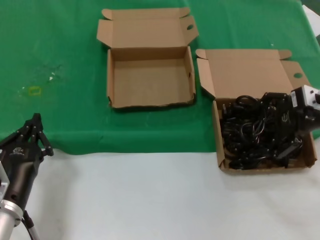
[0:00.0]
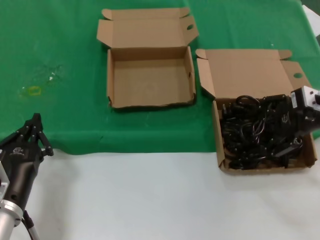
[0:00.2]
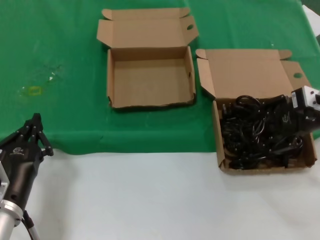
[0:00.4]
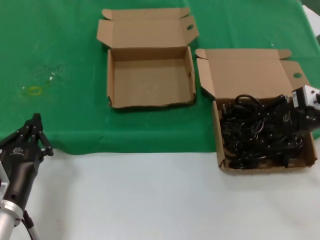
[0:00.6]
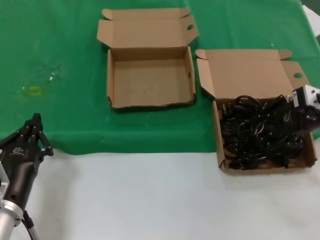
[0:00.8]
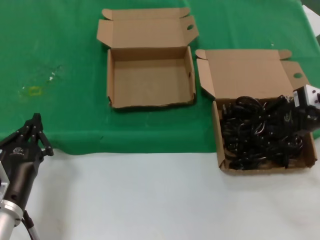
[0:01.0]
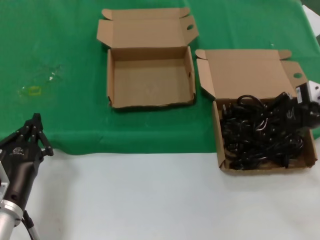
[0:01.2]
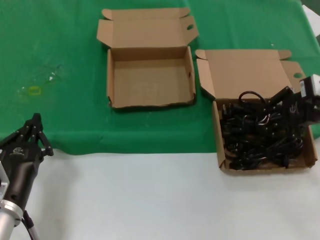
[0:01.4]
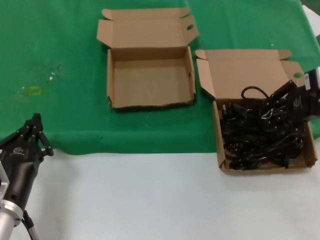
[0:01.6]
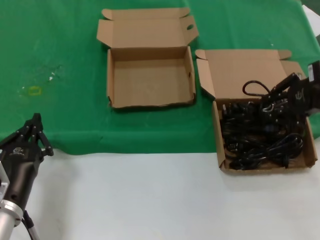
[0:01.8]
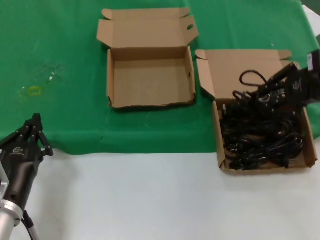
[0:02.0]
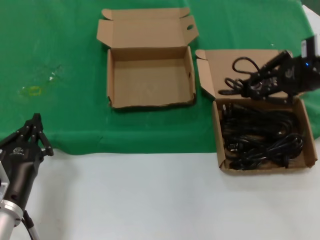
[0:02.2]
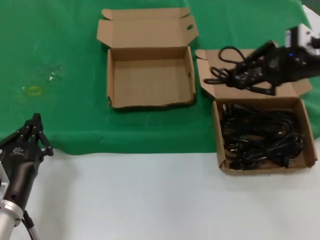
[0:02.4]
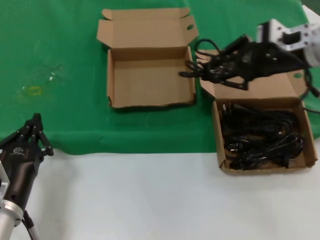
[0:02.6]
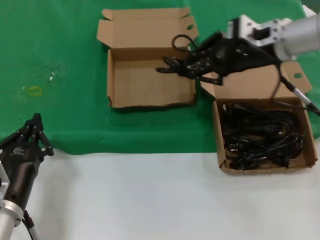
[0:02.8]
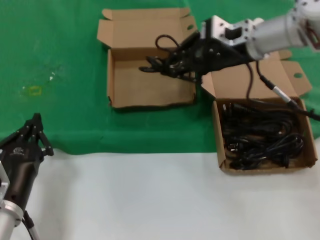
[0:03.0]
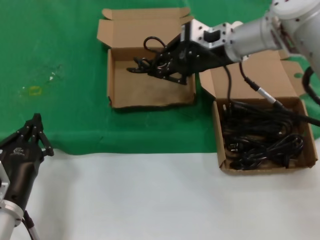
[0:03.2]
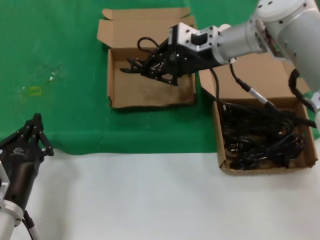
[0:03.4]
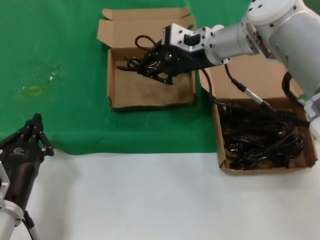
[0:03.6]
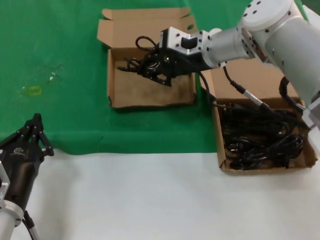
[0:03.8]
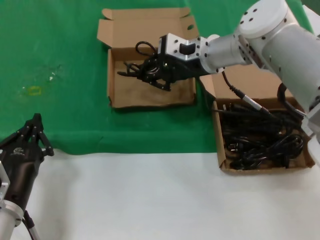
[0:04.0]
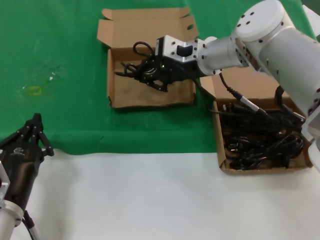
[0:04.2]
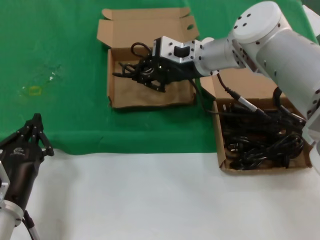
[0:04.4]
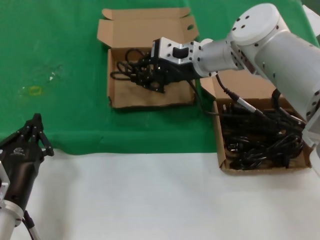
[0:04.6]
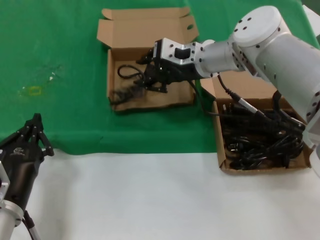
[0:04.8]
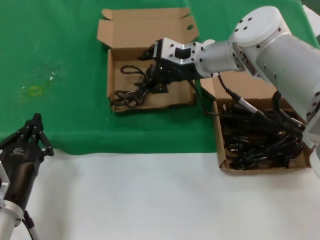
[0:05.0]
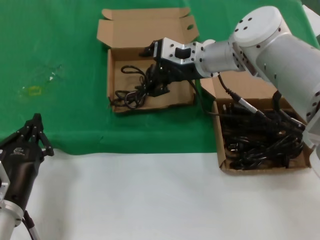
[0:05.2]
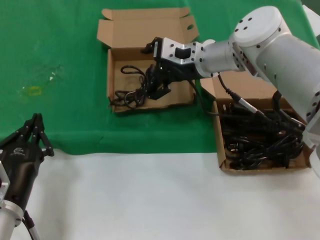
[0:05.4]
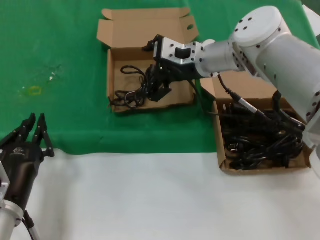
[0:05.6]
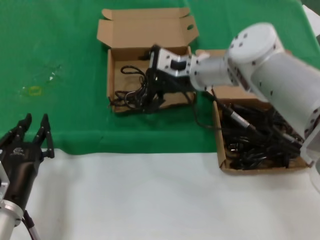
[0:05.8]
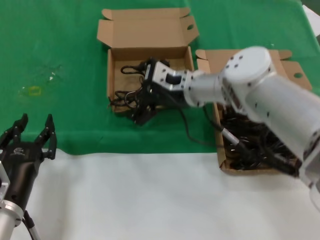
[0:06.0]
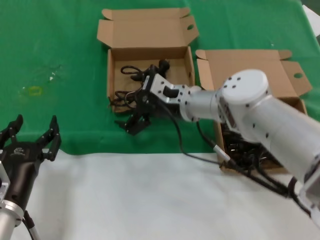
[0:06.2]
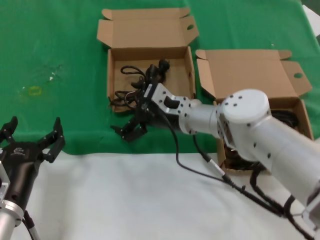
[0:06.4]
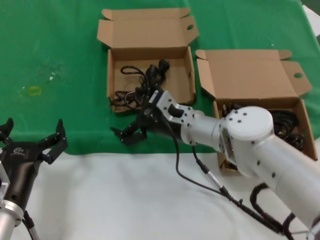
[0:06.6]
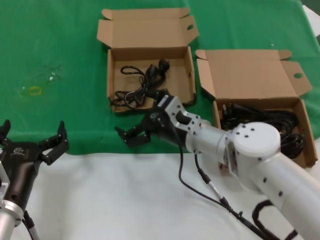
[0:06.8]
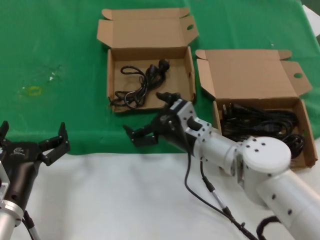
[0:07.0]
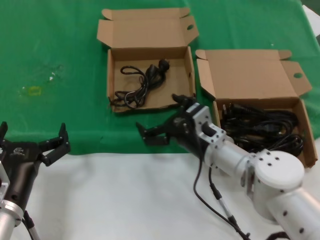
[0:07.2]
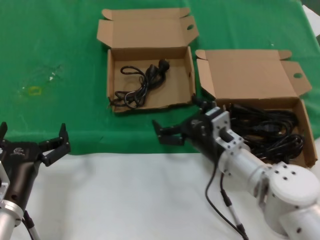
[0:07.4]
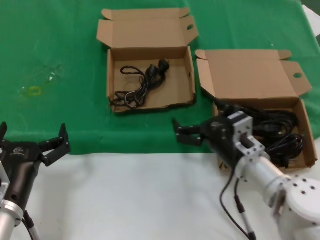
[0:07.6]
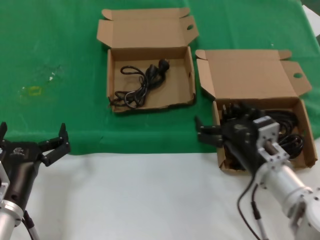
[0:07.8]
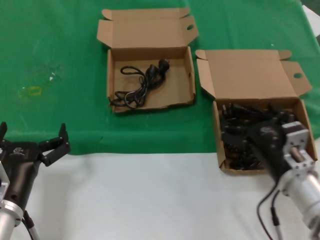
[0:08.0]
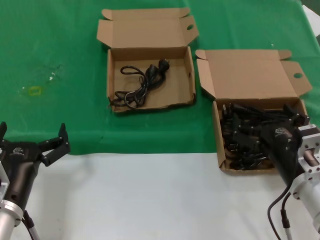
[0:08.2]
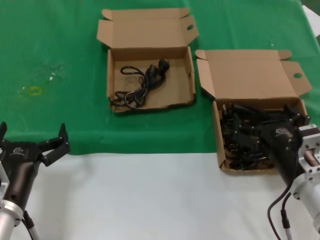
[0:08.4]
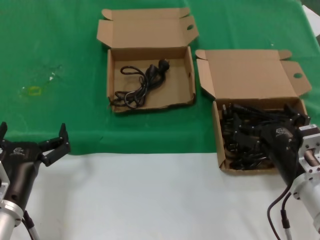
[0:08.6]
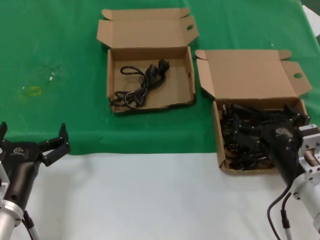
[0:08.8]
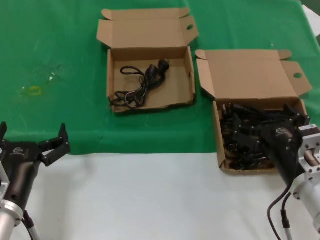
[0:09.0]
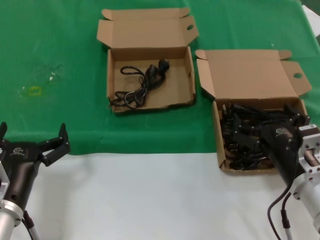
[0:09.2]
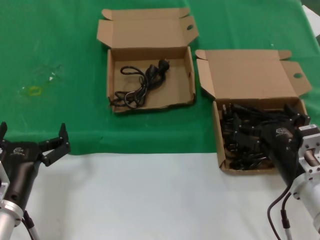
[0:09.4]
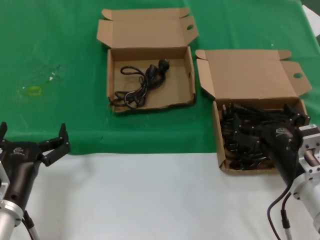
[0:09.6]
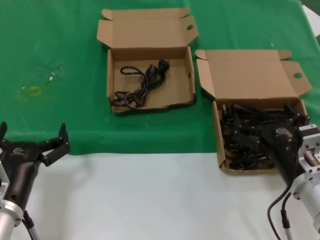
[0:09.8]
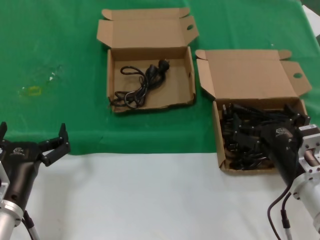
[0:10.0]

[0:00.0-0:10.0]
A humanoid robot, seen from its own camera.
Task of the whole recording: take the parts from the box containing them and put them into an empty box.
Step, 0:01.2 to 0:04.8: Place the data cable in the another box.
0:00.0 to 0:01.4: The hands stay close to where they were, moving slightly.
0:01.4 to 0:02.8: The right hand moves to the left, upward and forward, some 15 cm.
0:02.8 to 0:04.2: The right hand travels to the left and downward by some 15 cm.
0:04.2 to 0:05.8: There are only small adjustments of the hands.
0:05.8 to 0:07.2: The right hand moves downward and backward, some 20 cm.
0:07.2 to 0:08.6: The right hand heads to the right and backward, covering about 15 cm.
0:08.6 to 0:10.0: The two hands keep their place.

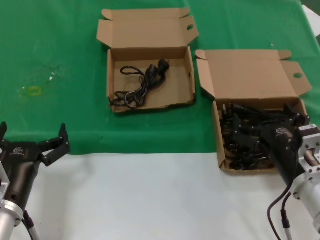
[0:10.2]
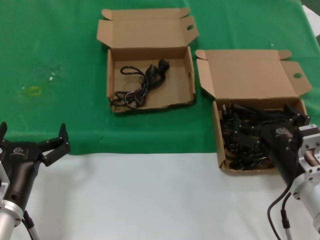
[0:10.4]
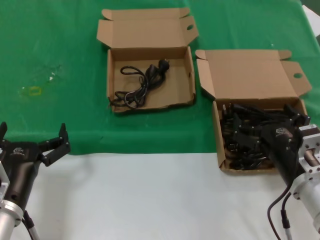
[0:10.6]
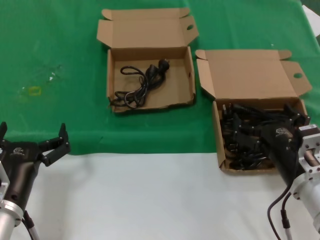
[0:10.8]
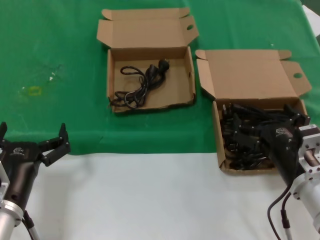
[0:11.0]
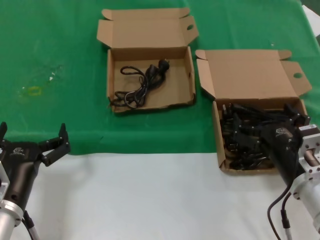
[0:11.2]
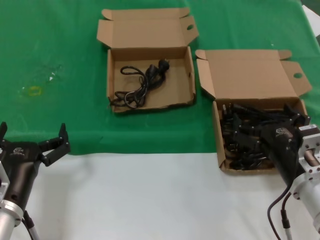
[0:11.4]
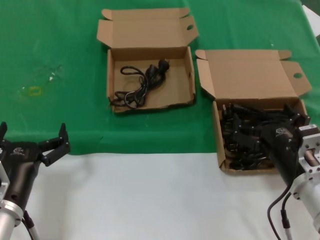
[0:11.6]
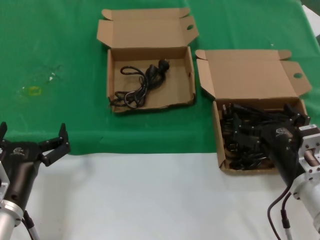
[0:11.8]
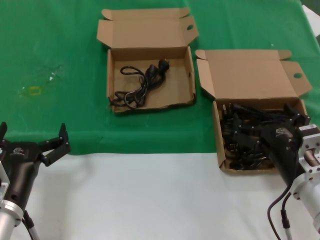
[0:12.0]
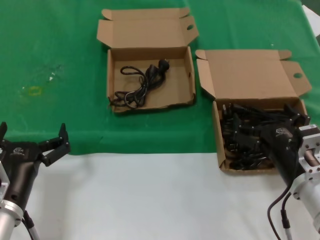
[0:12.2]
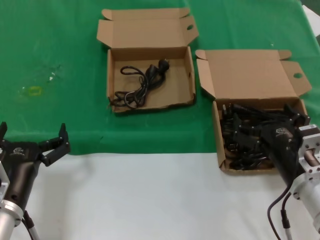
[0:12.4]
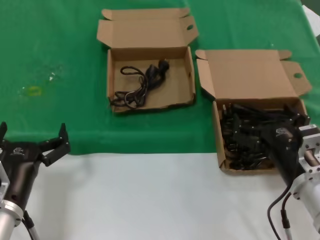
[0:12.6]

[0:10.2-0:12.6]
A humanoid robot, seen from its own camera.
Task of the whole recording: take the parts from the box containing them and put them into an empty box.
0:10.2 to 0:12.6: Neither hand changes place.

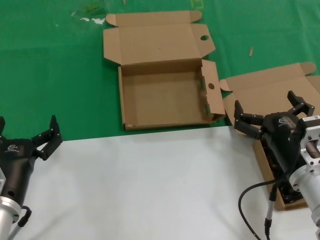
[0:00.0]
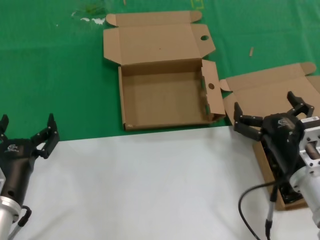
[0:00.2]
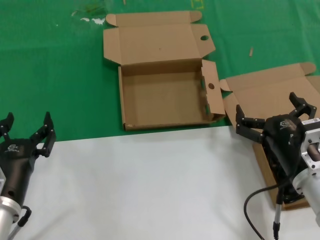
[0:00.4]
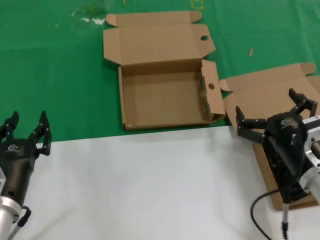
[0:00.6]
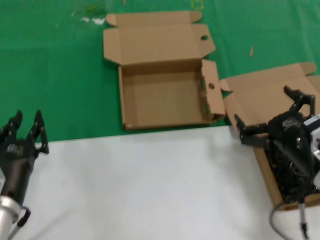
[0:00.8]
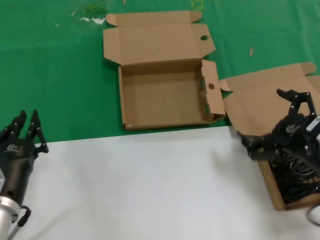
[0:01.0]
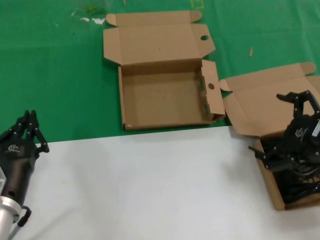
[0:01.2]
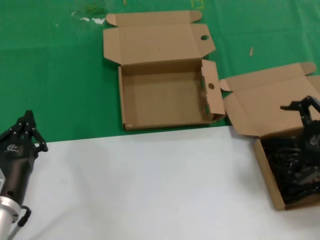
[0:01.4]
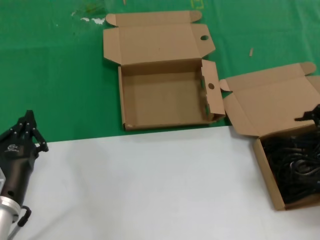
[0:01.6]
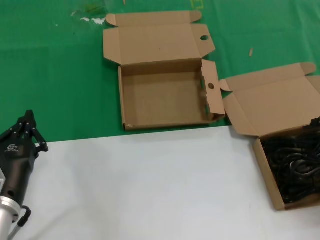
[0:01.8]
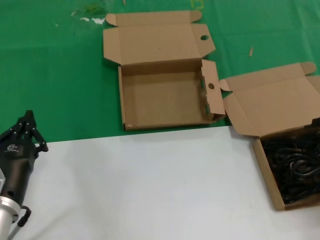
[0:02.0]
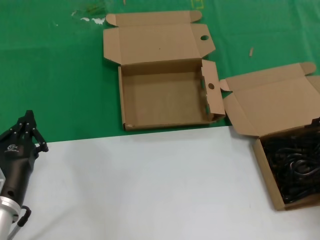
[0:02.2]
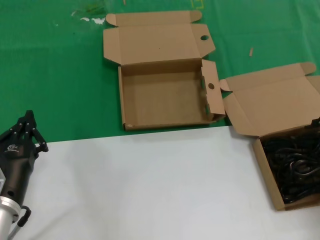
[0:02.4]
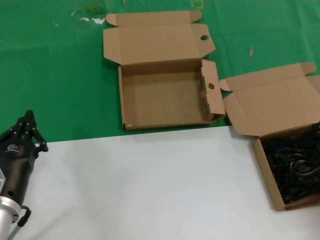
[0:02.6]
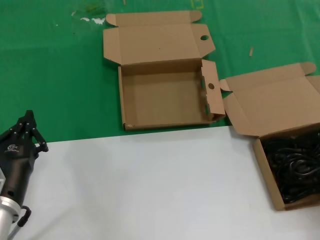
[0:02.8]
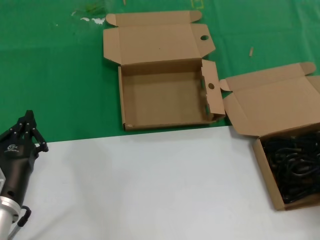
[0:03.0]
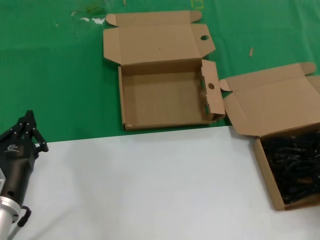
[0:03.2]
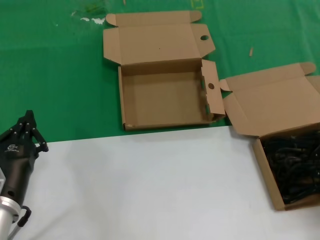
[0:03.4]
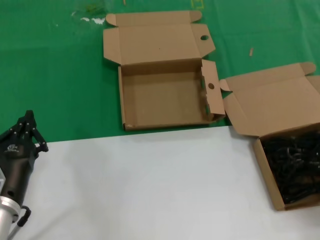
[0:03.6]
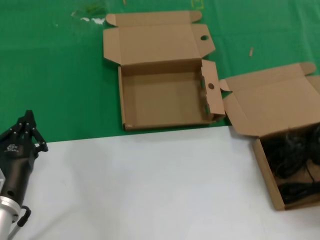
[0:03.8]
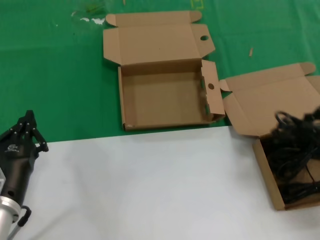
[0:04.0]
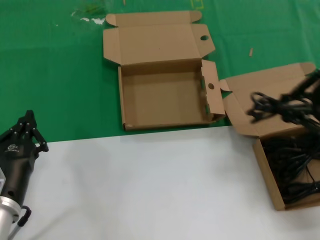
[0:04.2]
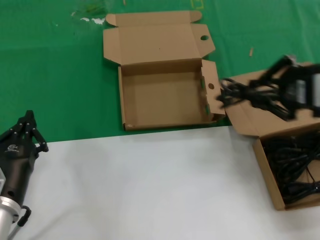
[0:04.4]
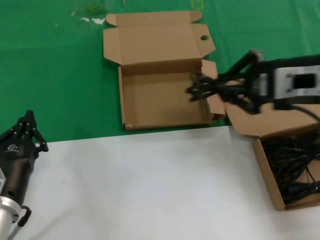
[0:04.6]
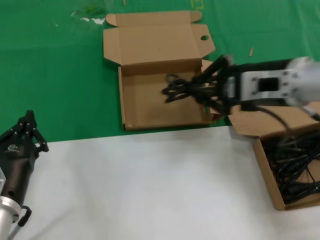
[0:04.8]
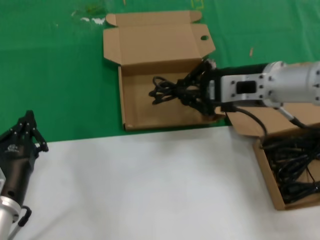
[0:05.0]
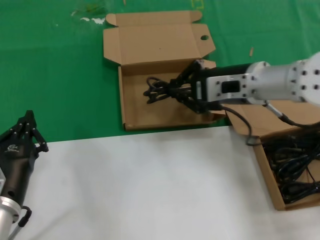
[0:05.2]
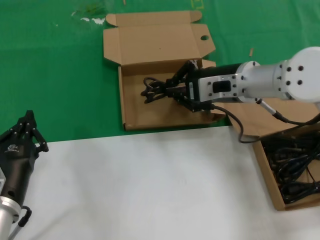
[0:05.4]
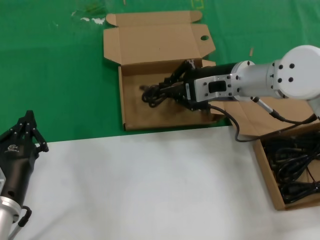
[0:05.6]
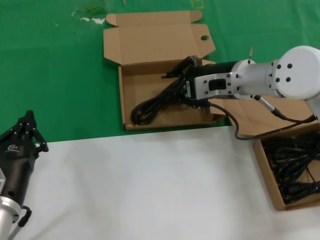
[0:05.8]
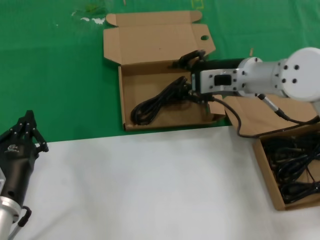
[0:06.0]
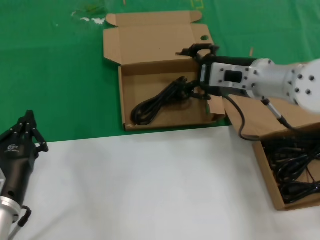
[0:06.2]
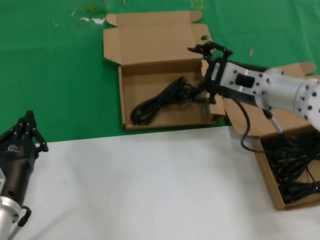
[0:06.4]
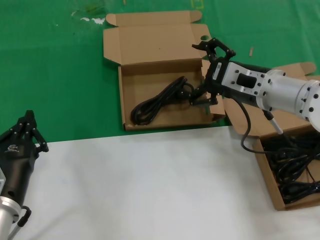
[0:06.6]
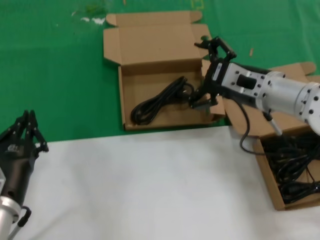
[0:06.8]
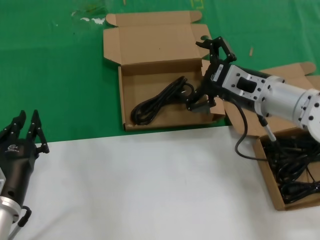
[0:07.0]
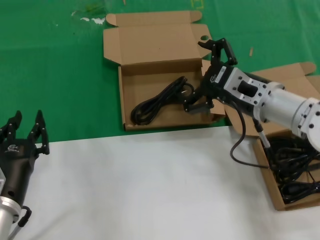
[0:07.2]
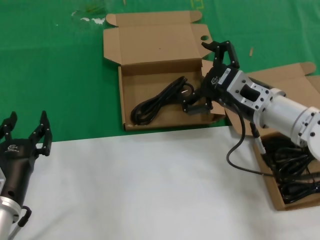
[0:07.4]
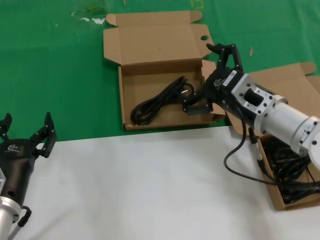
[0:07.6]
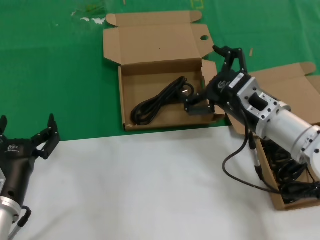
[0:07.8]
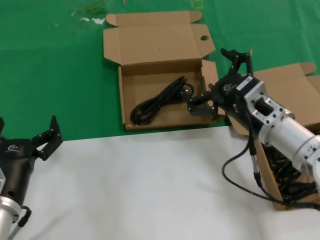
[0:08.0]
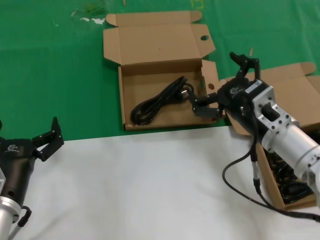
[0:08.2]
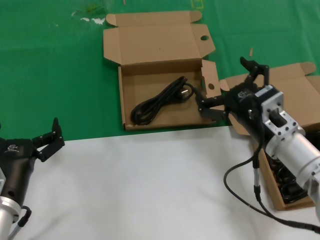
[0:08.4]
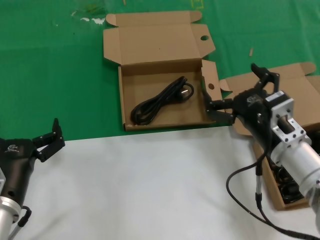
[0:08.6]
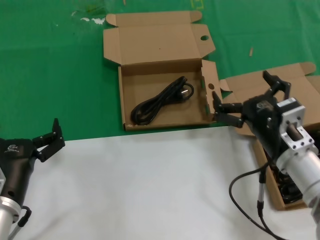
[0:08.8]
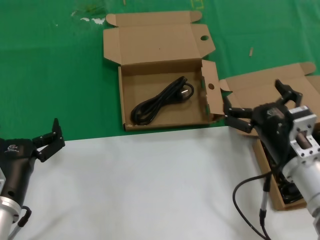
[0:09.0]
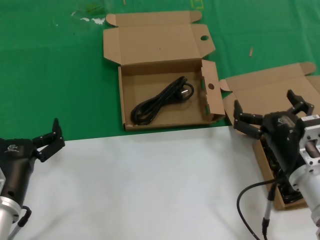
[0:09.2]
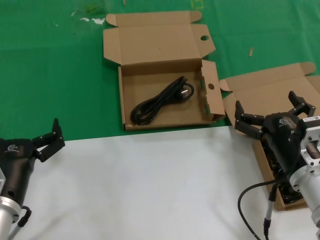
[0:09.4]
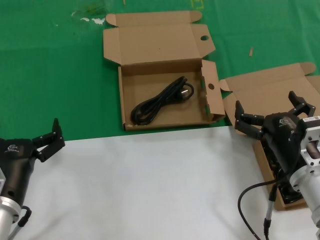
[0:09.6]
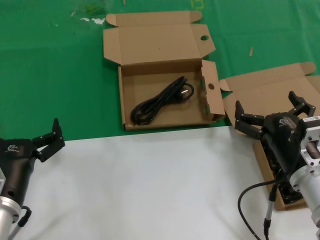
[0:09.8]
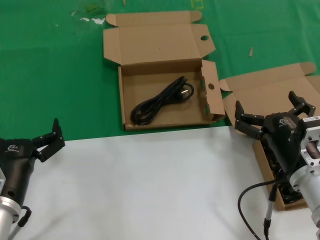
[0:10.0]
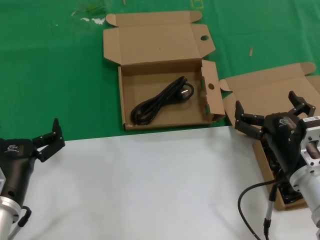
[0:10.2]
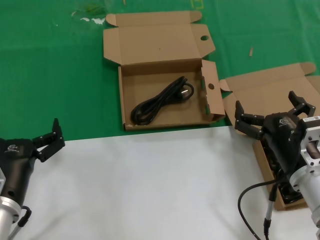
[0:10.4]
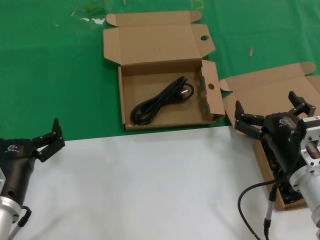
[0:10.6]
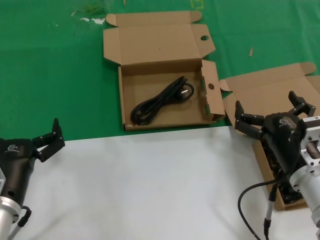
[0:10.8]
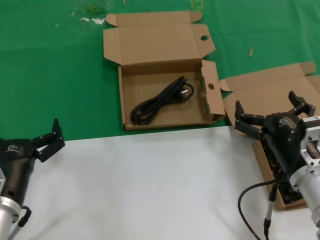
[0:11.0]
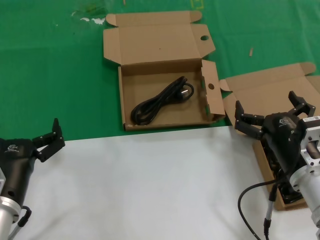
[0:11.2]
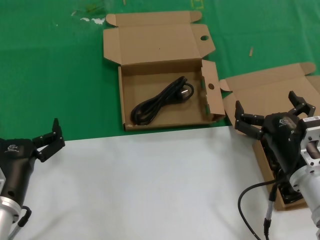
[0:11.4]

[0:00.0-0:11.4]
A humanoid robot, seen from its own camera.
Task of the whole recording: take the parts from the box containing them and put them into an empty box.
Step, 0:00.0 to 0:03.4: Grasp the data cable.
Step, 0:03.6 to 0:06.0: Place the data cable in the another box.
0:00.0 to 0:01.4: The right hand is displaced upward and to the right by approximately 20 cm.
0:01.4 to 0:02.8: The right hand goes some 5 cm to the right.
0:02.8 to 0:04.2: The right hand shifts about 15 cm upward and to the left.
0:04.2 to 0:05.6: The right hand moves forward, to the left and downward, roughly 25 cm.
0:05.6 to 0:07.2: The right hand shifts roughly 5 cm backward.
0:07.2 to 0:08.6: The right hand goes about 10 cm downward and backward.
0:08.6 to 0:10.0: The right hand moves approximately 5 cm.
0:10.0 to 0:11.4: Both hands stay about where they are.
